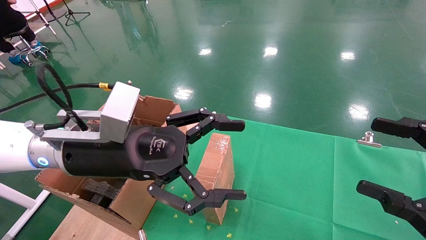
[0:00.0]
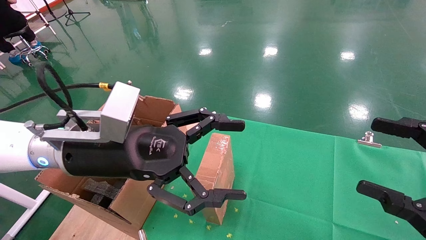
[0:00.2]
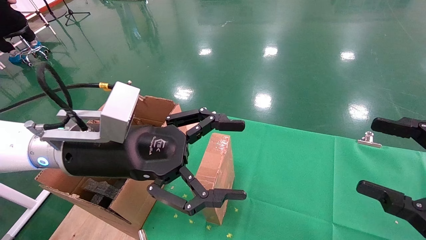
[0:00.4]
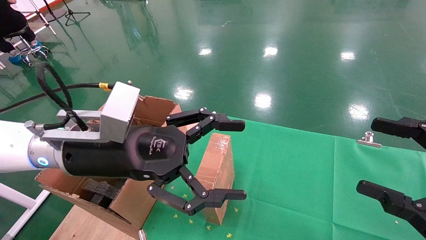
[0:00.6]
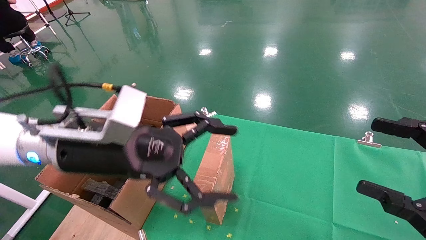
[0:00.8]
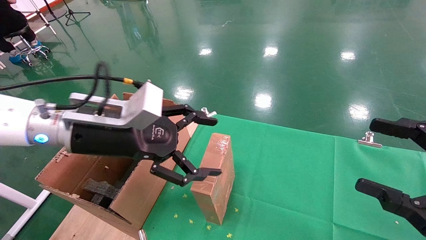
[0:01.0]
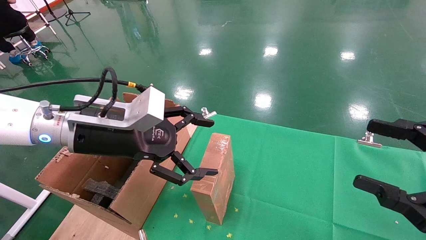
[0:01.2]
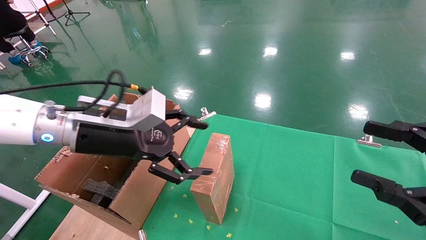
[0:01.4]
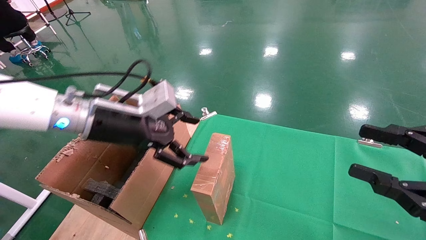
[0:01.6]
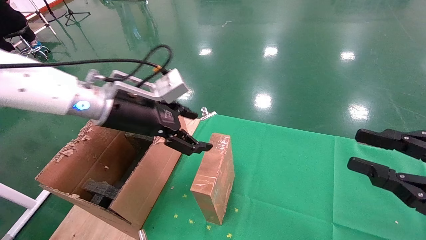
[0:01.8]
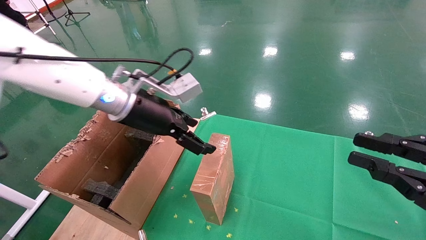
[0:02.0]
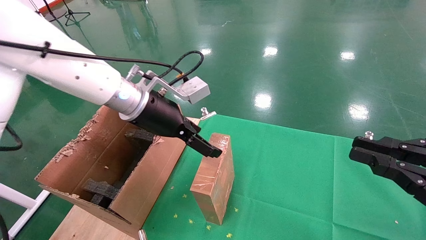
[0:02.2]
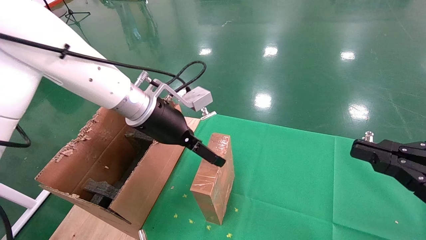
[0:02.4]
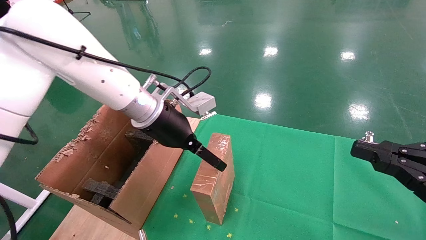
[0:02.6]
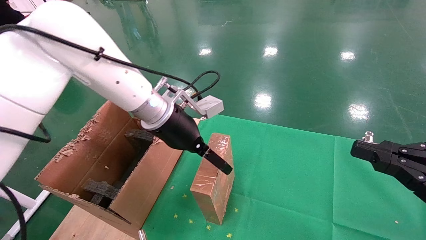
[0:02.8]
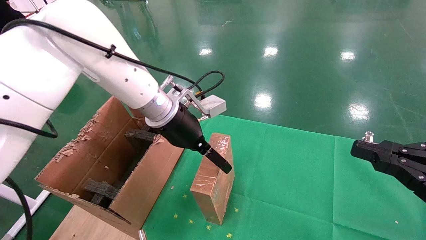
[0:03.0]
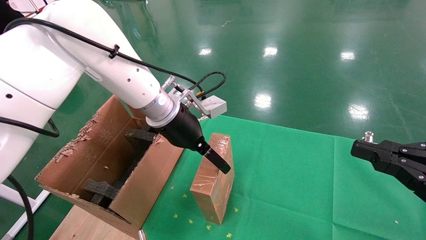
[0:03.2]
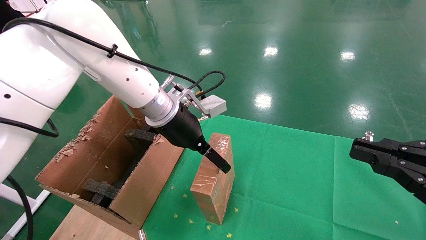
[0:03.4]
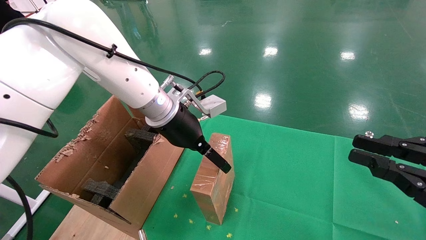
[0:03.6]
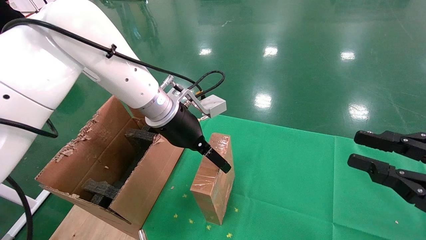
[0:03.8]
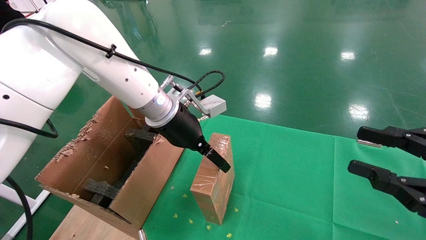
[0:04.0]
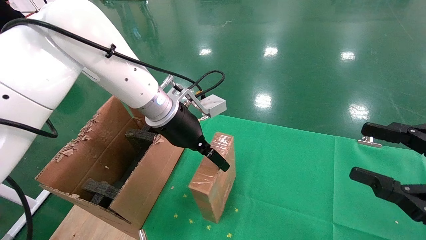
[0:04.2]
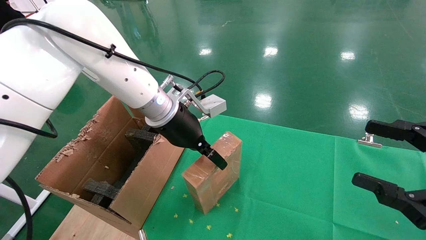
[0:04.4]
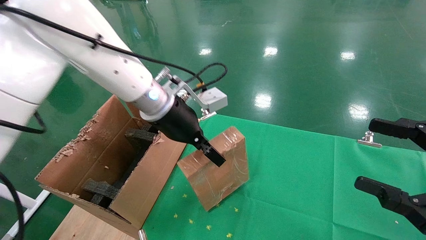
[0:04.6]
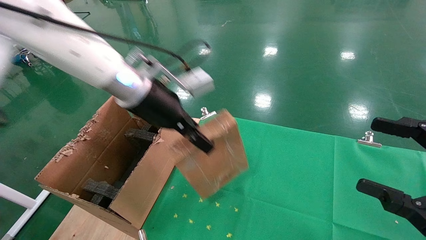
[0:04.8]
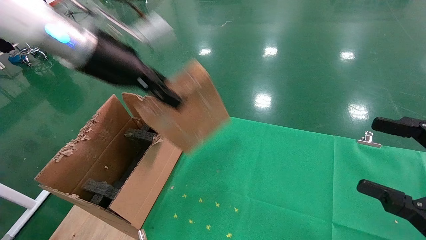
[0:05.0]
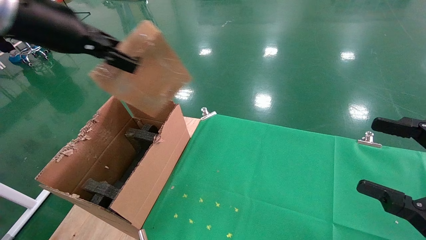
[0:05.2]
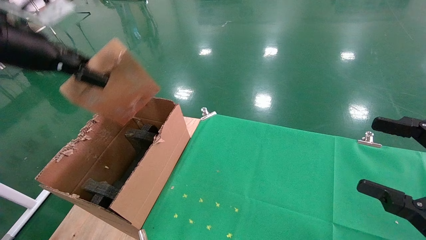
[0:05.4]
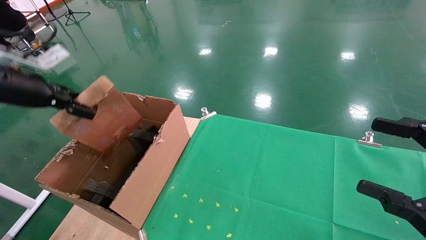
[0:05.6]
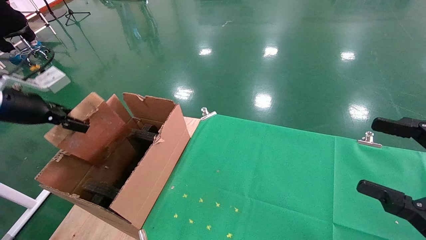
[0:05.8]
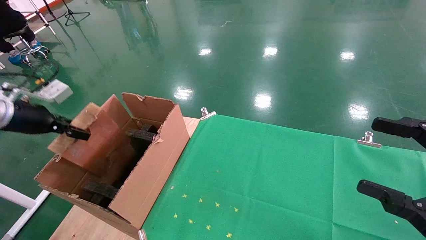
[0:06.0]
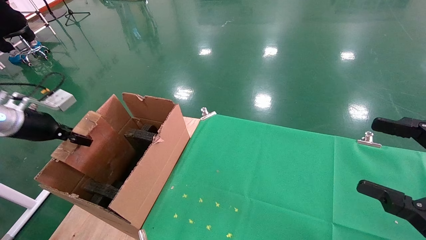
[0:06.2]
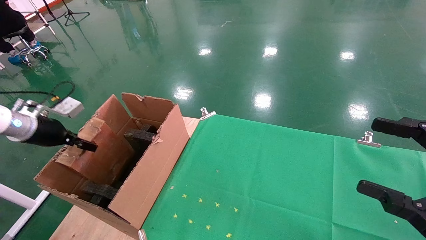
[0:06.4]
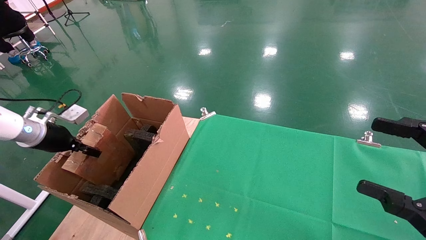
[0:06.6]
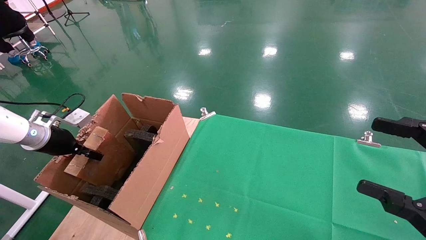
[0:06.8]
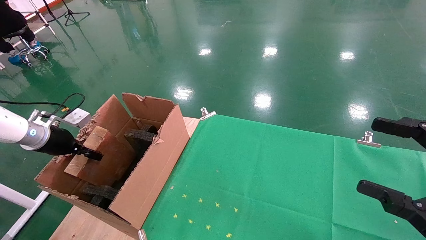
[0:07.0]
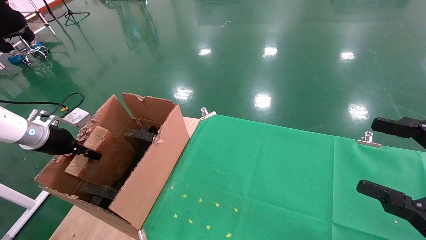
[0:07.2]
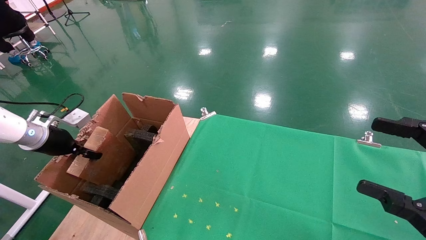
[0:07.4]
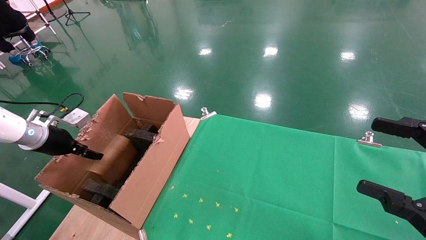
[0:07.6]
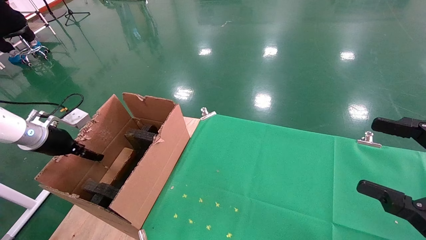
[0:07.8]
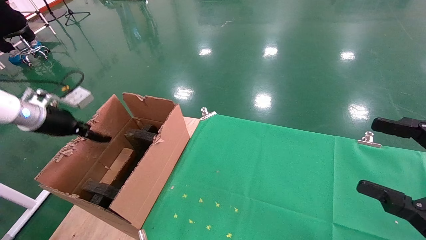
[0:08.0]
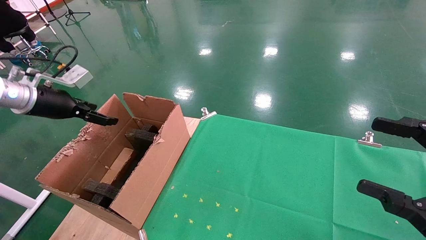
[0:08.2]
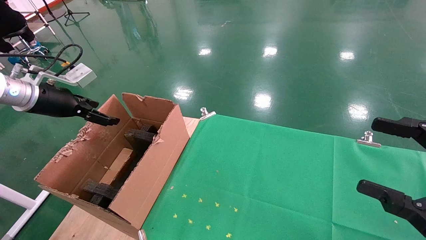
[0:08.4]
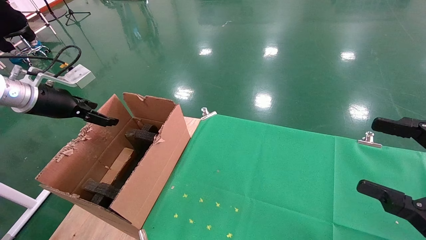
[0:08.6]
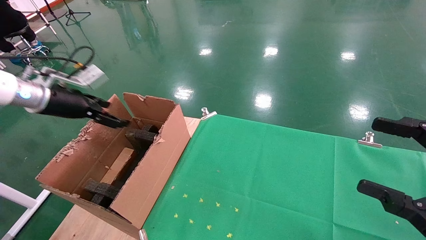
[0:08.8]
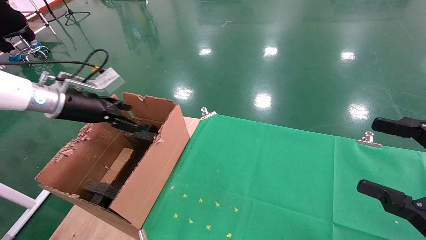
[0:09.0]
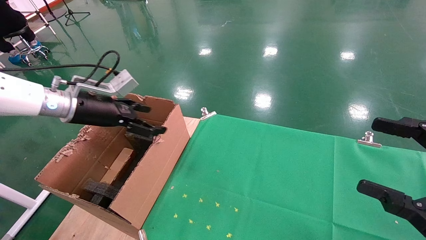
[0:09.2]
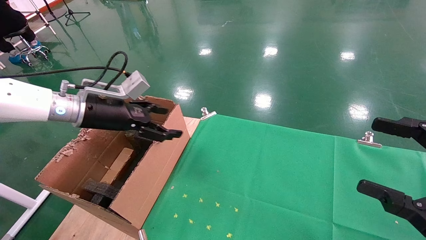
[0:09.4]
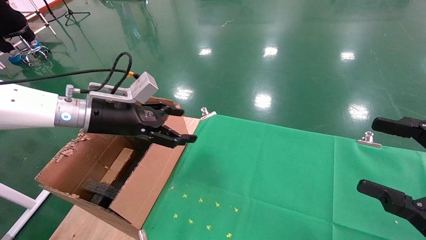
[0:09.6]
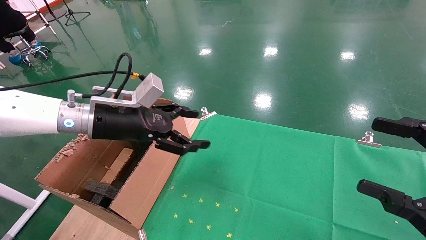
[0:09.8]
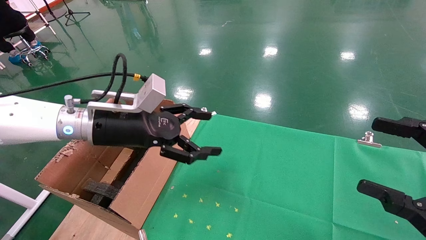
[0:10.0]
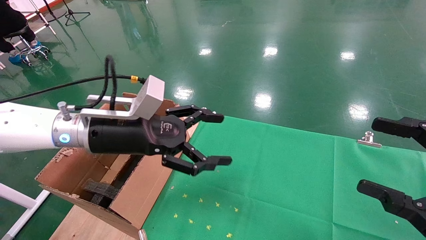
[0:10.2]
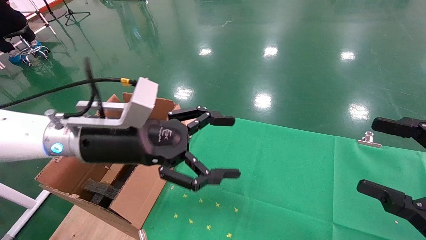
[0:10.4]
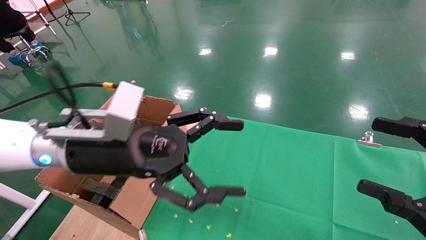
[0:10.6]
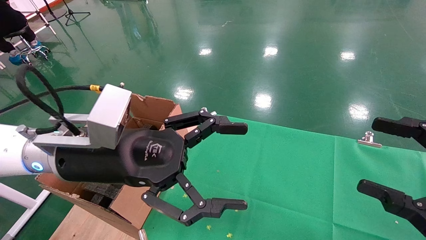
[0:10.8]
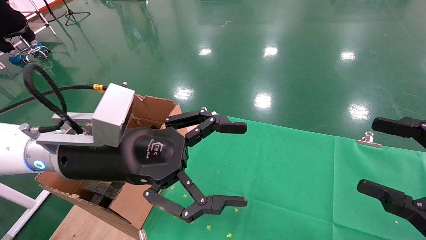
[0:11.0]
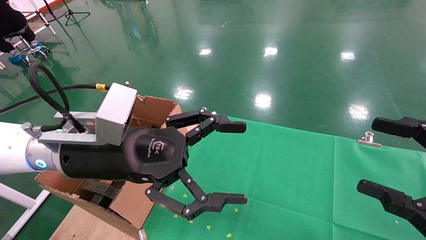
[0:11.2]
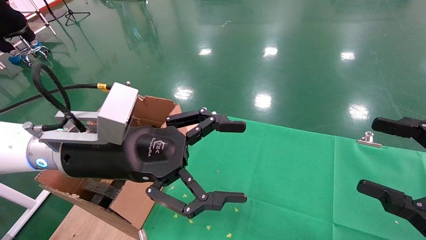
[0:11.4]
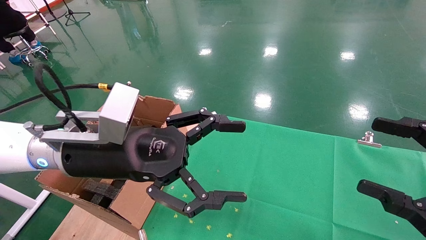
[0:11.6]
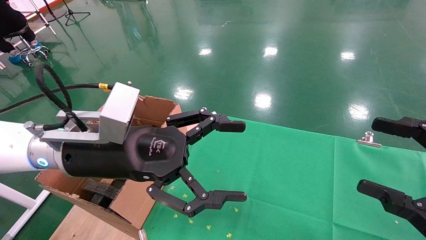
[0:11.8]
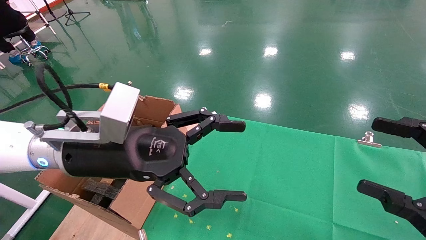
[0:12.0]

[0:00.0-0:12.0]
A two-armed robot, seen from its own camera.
Task of the whole recording: using a robotic arm to pick up a cardboard box and palace it the carton.
Step, 0:01.0 to 0:04.6: Pick up the mouse and the power cord paper box.
Step, 0:04.8 to 0:08.2: Place the mouse and the power cord paper box into the container.
0:00.0 to 0:01.6: The left gripper travels forward by some 5 cm.
0:01.6 to 0:03.0: The right gripper closes up. Meanwhile the left gripper travels to the right and forward by some 10 cm.
0:03.0 to 0:04.4: The right gripper opens its fingers, while the left gripper closes.
0:04.4 to 0:06.0: The left gripper is displaced to the left by about 35 cm, and closes up.
0:06.0 to 0:07.6: The left gripper travels downward by about 10 cm.
0:07.6 to 0:09.0: The left gripper heads to the right and upward, covering roughly 15 cm, and opens its fingers.
0:09.0 to 0:10.4: The left gripper travels to the right and backward by about 20 cm.
0:10.4 to 0:12.0: The grippers stay close to where they were, moving slightly.

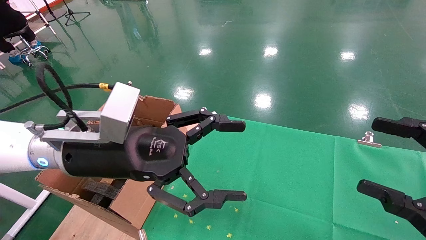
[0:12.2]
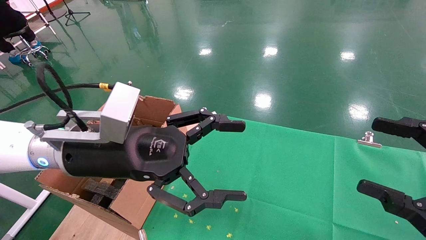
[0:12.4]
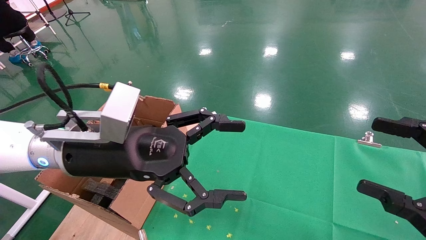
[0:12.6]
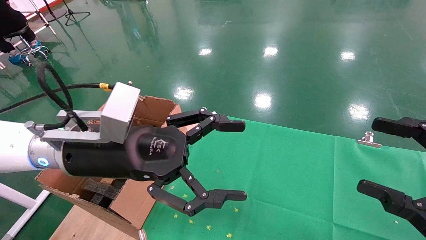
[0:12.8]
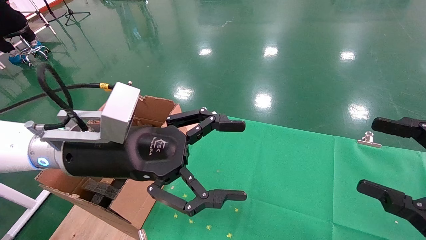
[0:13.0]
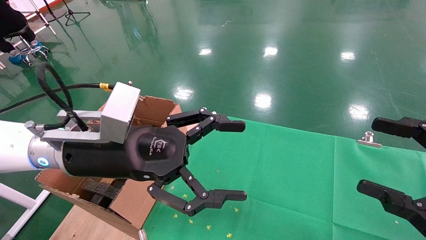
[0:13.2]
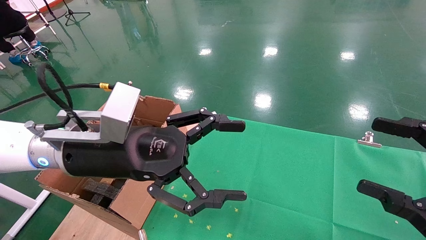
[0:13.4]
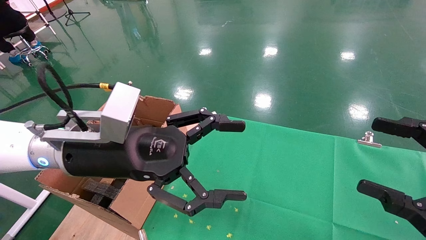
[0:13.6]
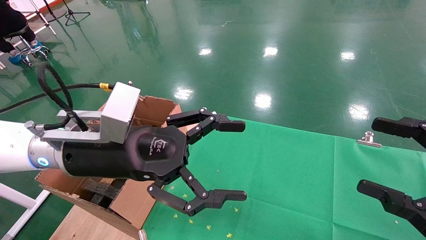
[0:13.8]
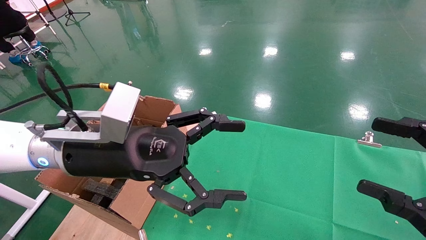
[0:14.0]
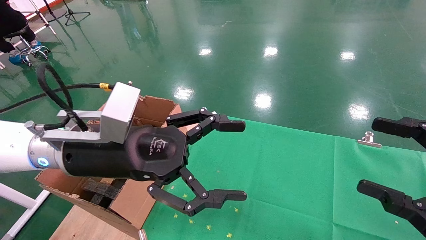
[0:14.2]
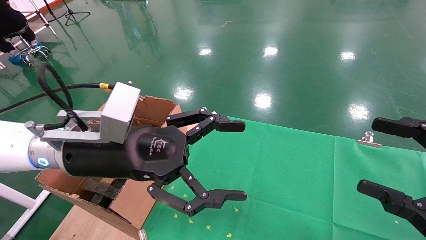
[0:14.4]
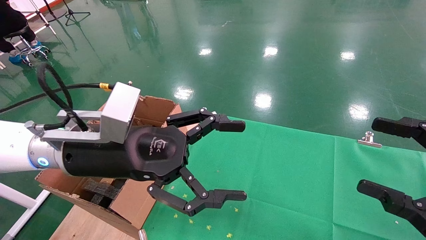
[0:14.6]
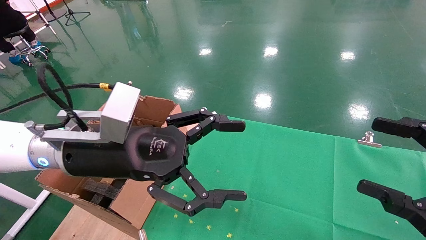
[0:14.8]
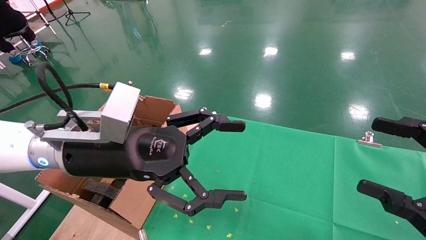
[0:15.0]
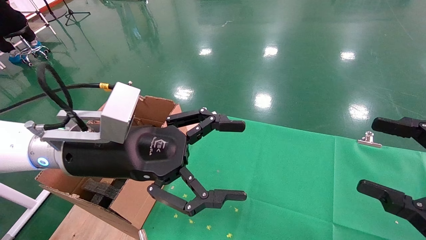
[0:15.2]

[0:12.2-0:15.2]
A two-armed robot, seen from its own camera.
Task of the whole recording: using a robotic arm to pick up a cardboard box and palace it the carton.
0:12.2 to 0:15.2: The two grippers keep their place.

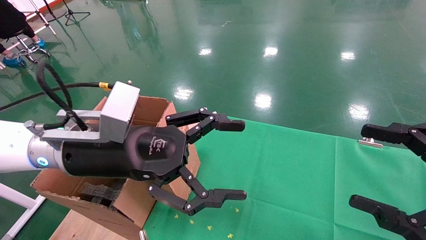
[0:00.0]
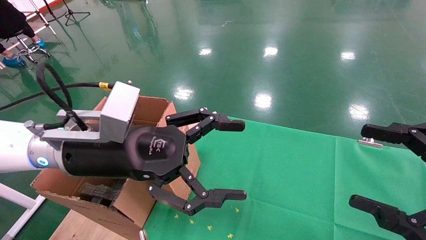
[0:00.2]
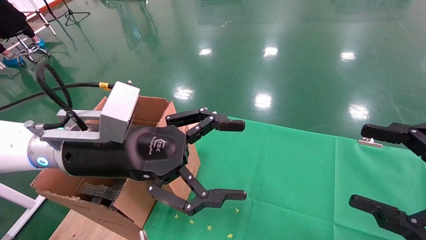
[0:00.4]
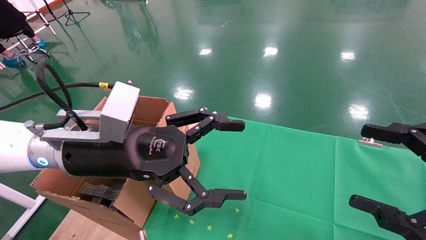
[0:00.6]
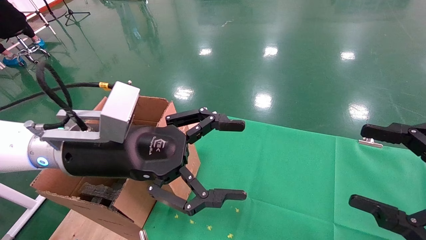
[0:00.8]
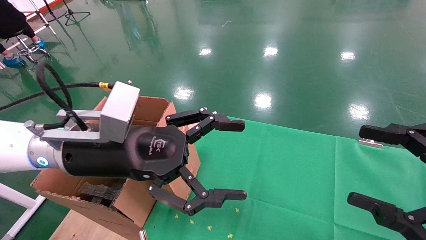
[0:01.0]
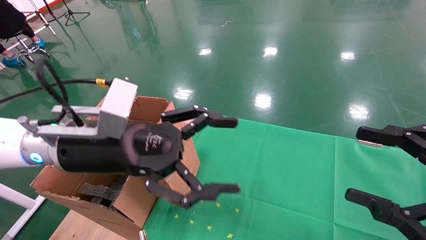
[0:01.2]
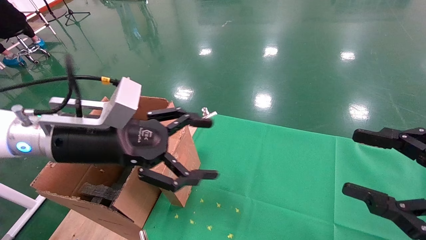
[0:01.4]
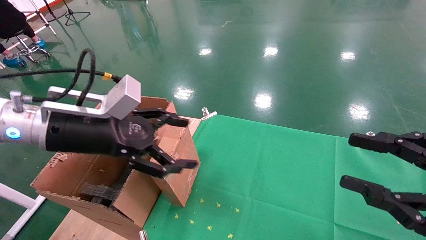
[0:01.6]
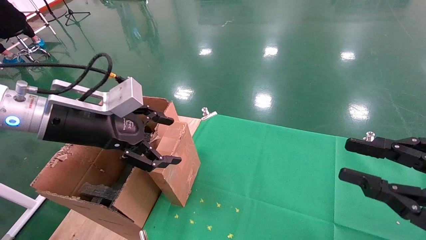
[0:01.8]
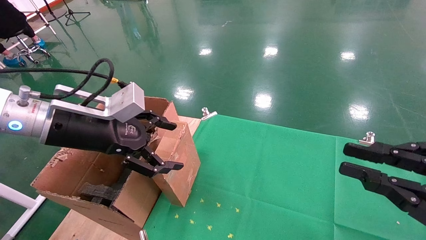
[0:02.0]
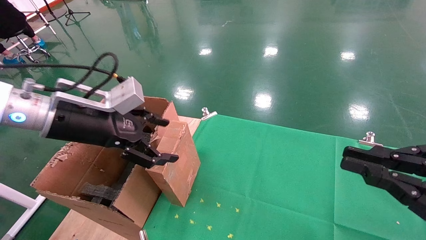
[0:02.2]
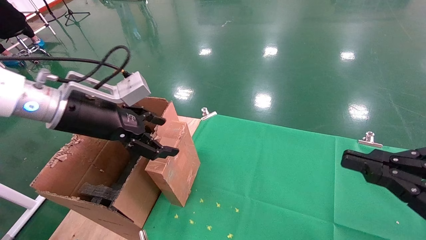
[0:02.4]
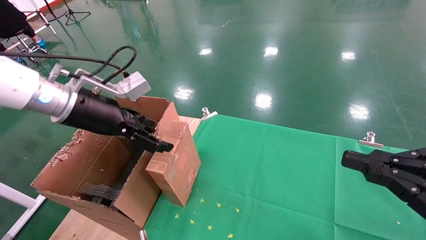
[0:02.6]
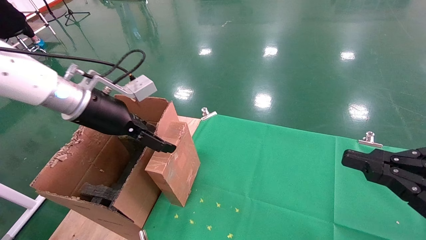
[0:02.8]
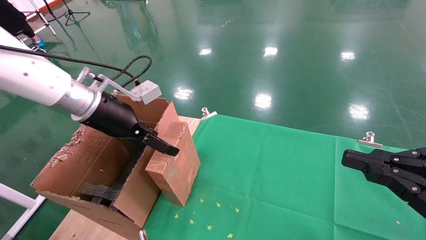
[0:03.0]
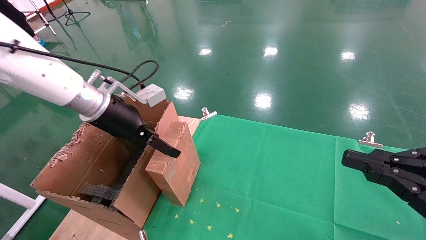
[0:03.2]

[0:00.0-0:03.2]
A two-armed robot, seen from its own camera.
Task of the whole recording: using a robotic arm to pick up a cardboard box and palace it the carton.
0:00.0 to 0:01.6: The right gripper closes up. Meanwhile the left gripper is displaced to the left by about 5 cm.
0:01.6 to 0:03.2: The right gripper closes its fingers. Meanwhile the left gripper shifts approximately 10 cm forward.
